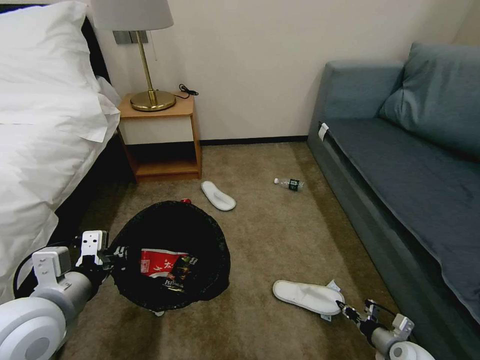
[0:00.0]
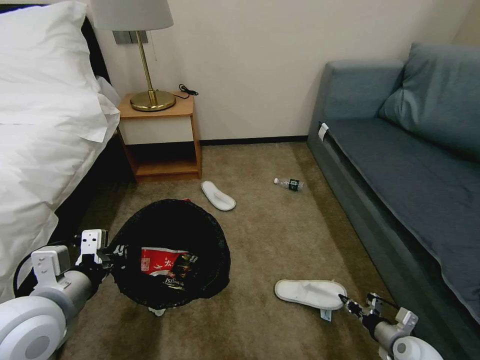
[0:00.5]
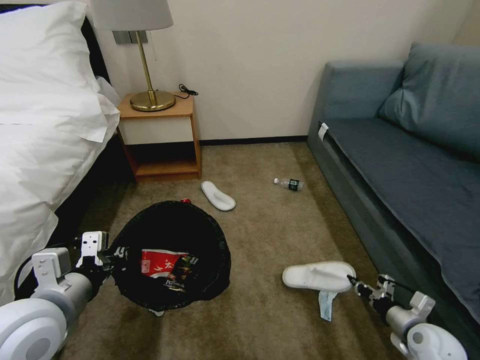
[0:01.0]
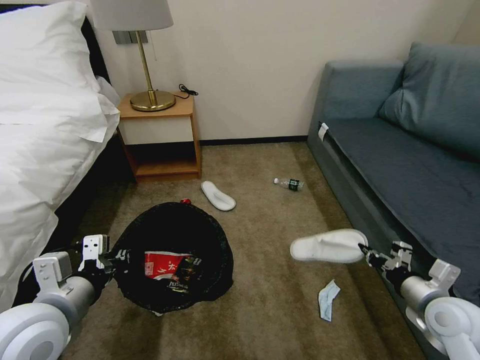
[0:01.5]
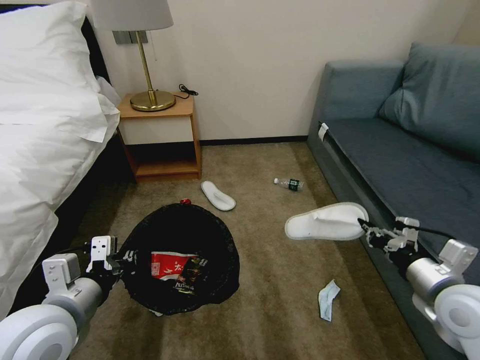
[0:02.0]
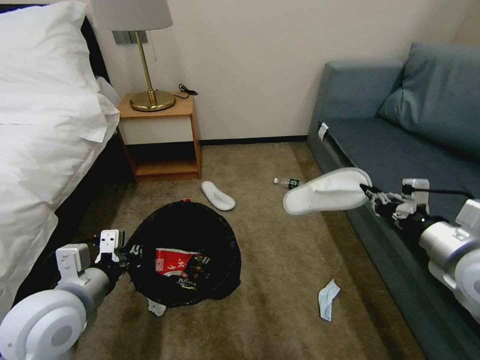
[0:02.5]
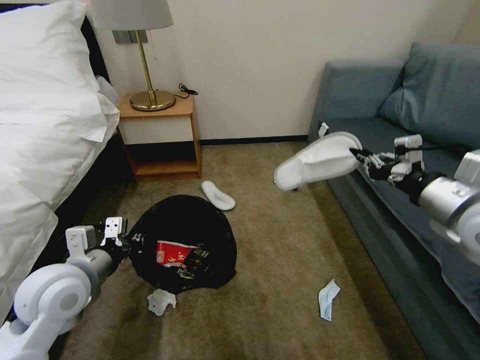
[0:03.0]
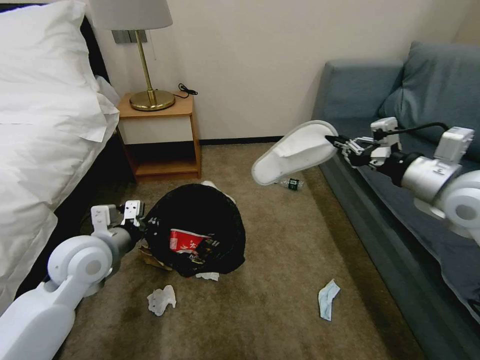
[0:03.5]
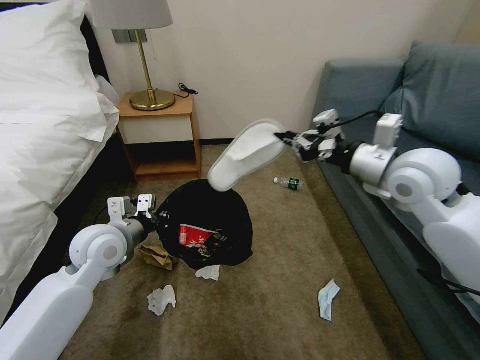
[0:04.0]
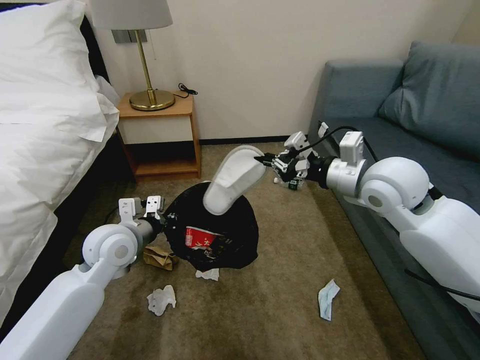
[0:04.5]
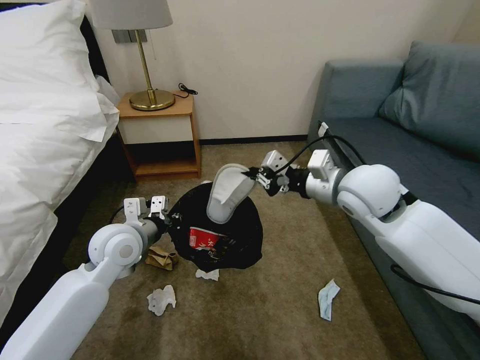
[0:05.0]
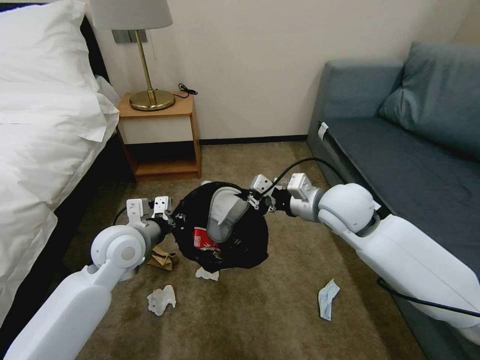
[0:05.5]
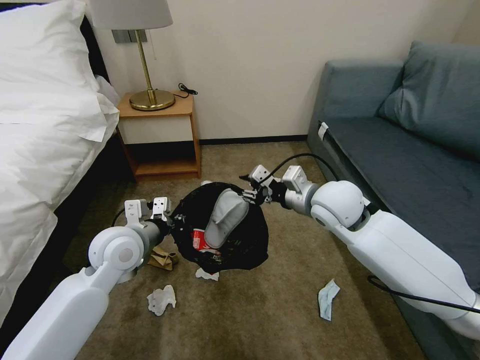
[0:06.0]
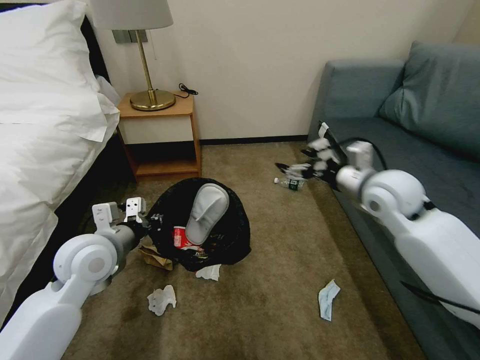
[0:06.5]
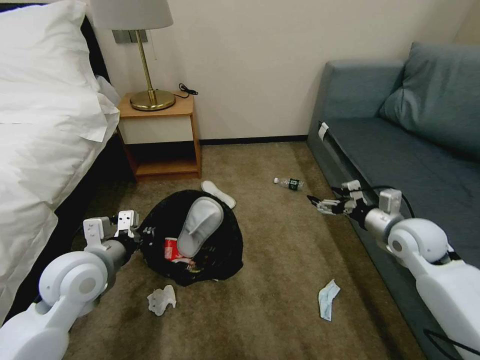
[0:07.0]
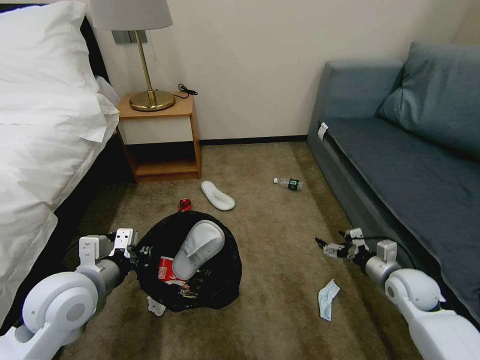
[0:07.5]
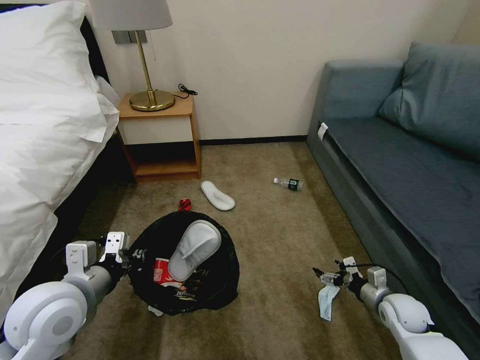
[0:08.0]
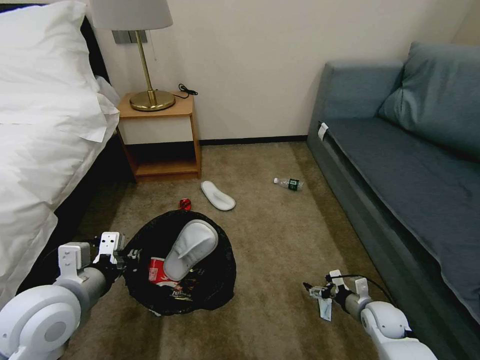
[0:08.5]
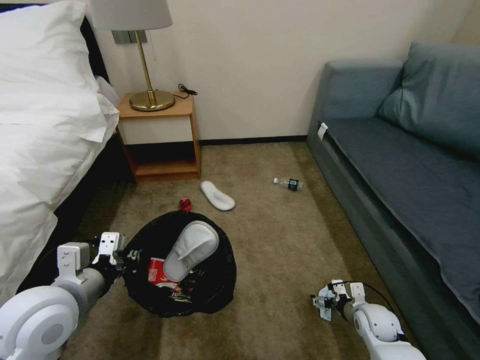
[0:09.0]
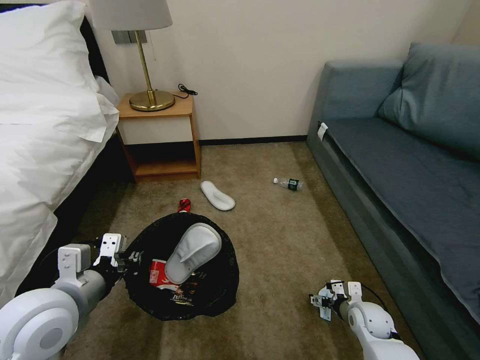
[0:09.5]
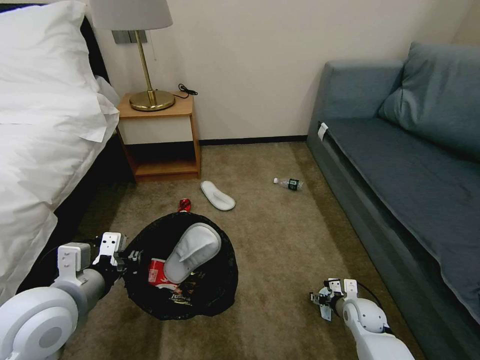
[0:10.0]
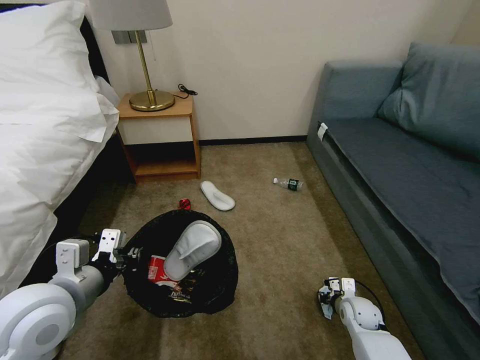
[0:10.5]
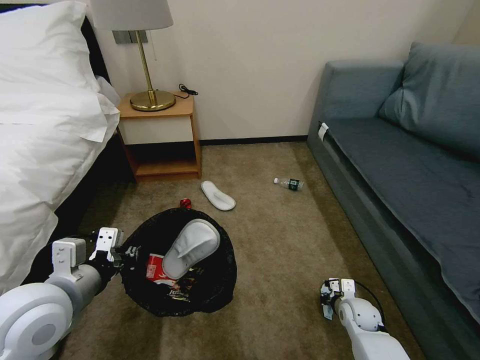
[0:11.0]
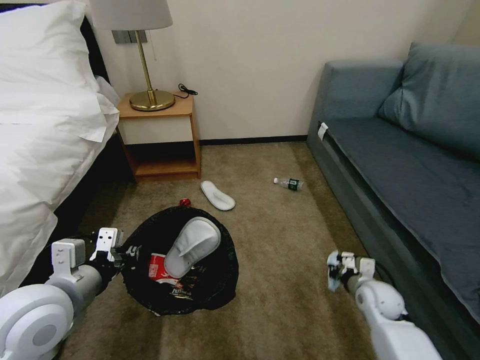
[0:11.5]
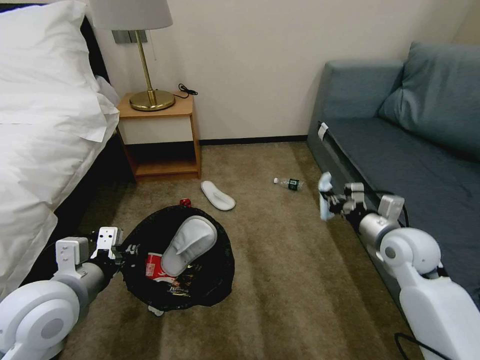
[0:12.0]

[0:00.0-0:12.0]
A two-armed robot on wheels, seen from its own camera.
Task of the whole recording: Pick up the trash bin, then pick up the garbage on the floor and place it into the trash bin.
0:00.0 to 0:02.0: The right gripper is displaced upward by roughly 30 cm.
0:02.0 to 0:04.0: The right gripper goes roughly 25 cm forward, upward and to the left. Meanwhile the left gripper heads forward, covering some 15 cm.
0:04.0 to 0:06.0: The right gripper is displaced to the left and downward by approximately 15 cm, and opens up.
0:06.0 to 0:08.0: The right gripper goes roughly 40 cm downward, to the right and backward, and opens its fingers, while the left gripper travels backward and to the left by roughly 15 cm.
0:08.0 to 0:10.0: The right gripper shifts some 10 cm to the left and downward.
0:10.0 to 0:12.0: The right gripper travels upward by some 25 cm, and closes its fingers.

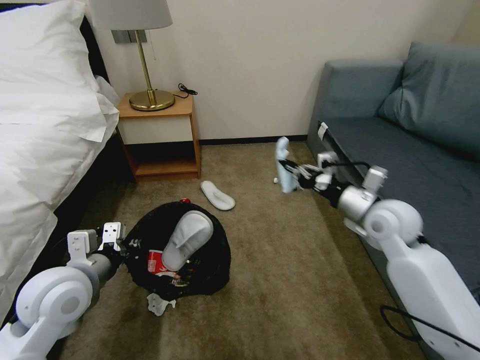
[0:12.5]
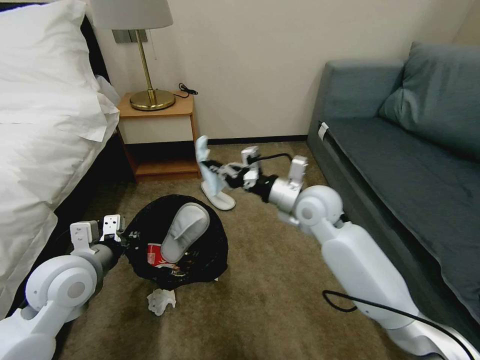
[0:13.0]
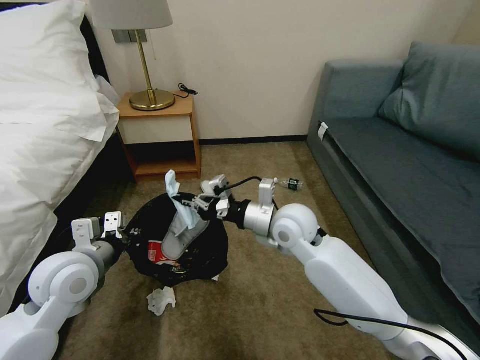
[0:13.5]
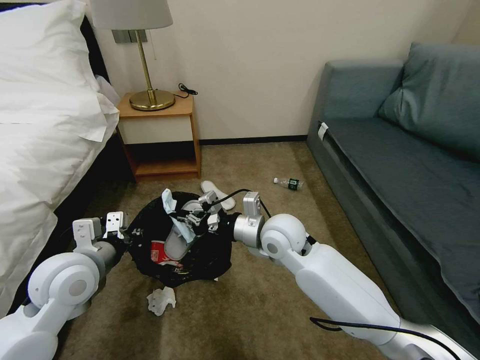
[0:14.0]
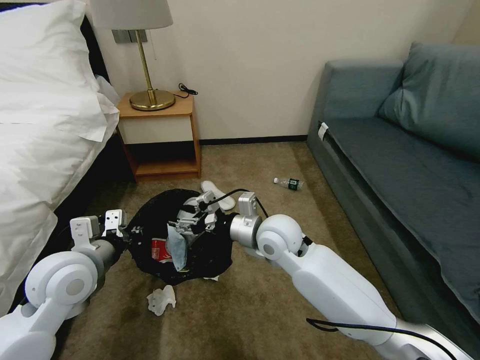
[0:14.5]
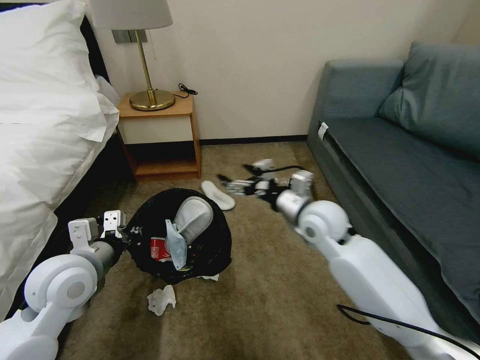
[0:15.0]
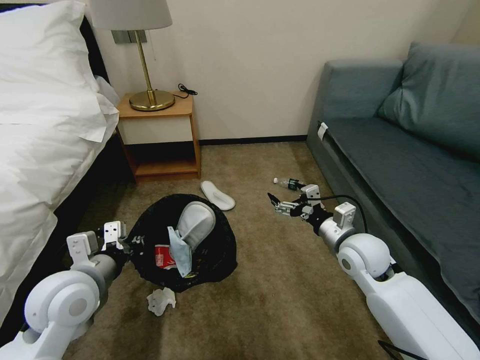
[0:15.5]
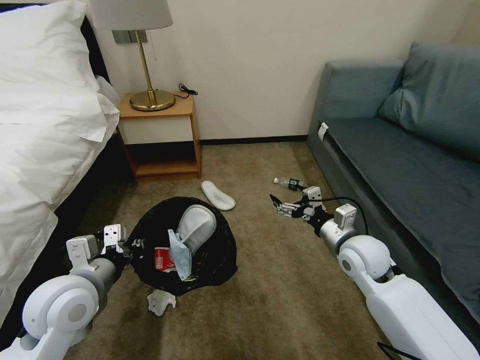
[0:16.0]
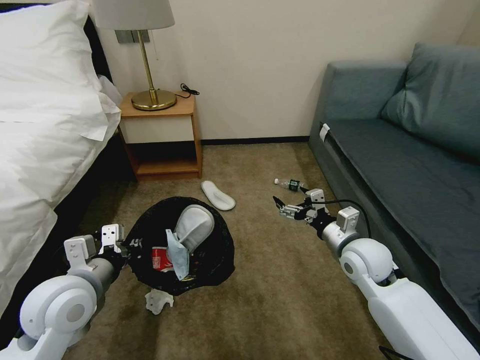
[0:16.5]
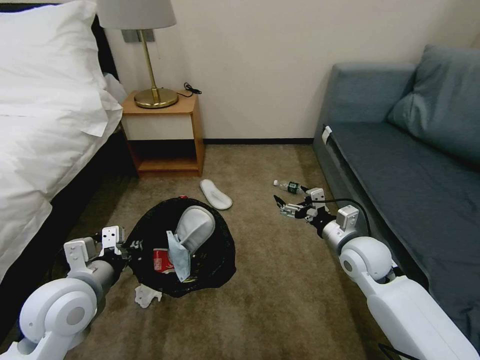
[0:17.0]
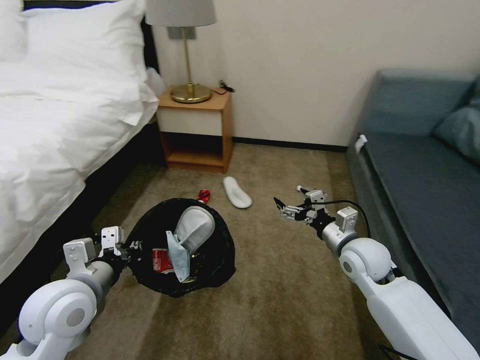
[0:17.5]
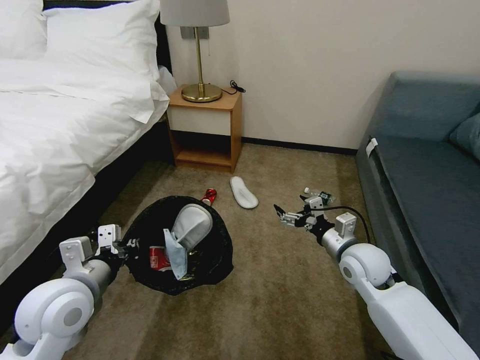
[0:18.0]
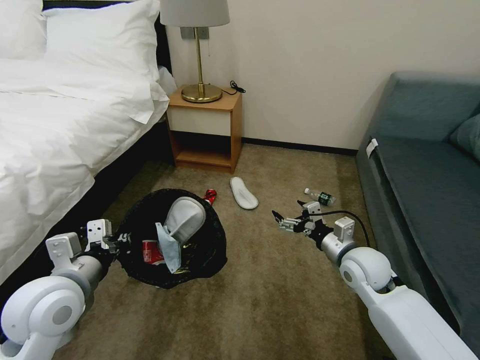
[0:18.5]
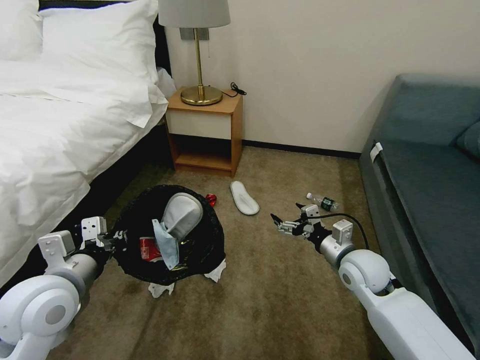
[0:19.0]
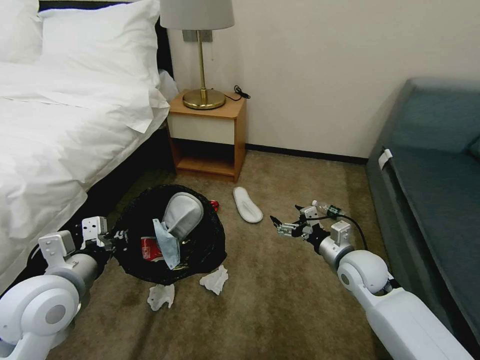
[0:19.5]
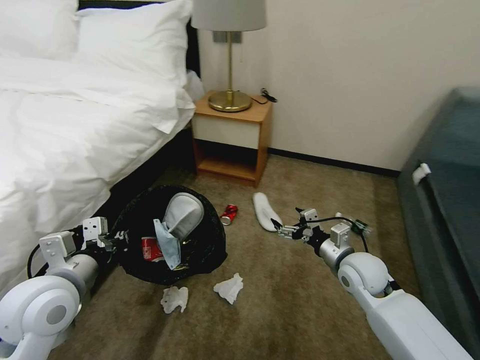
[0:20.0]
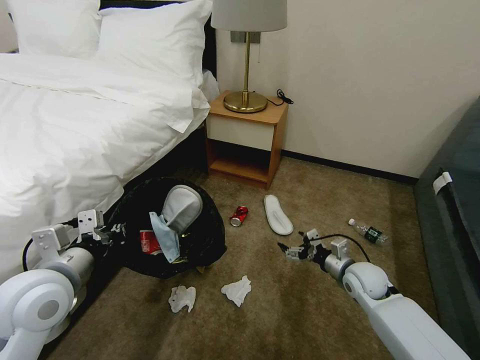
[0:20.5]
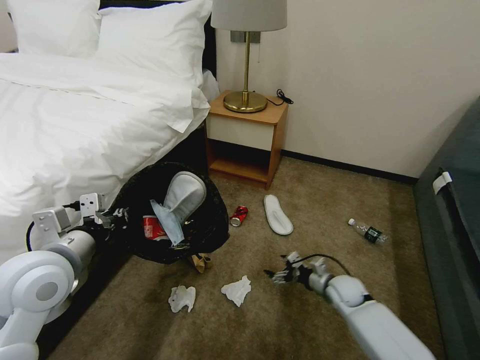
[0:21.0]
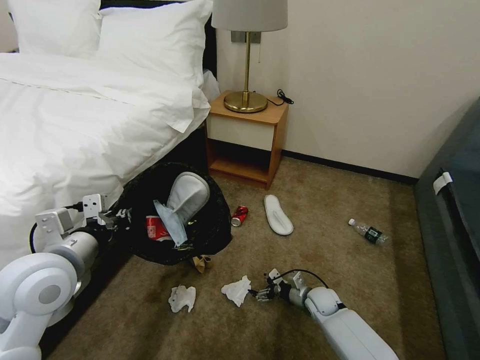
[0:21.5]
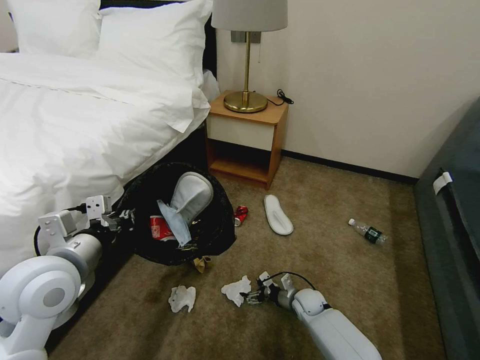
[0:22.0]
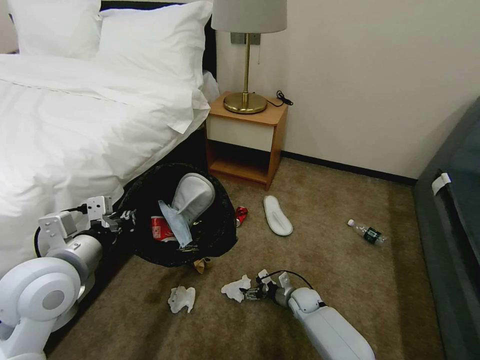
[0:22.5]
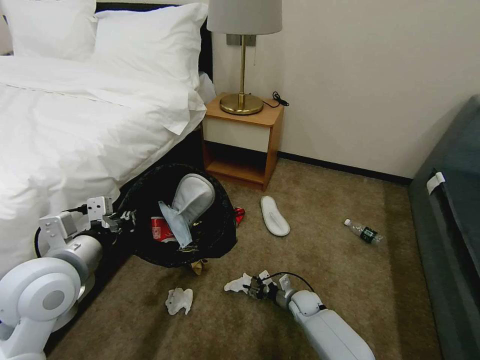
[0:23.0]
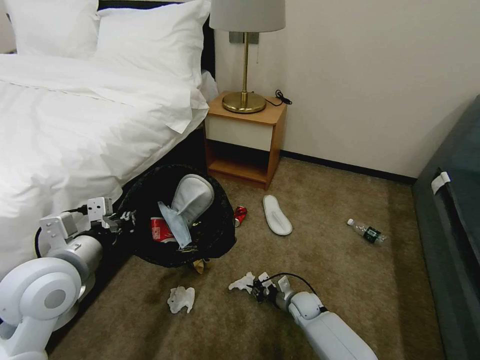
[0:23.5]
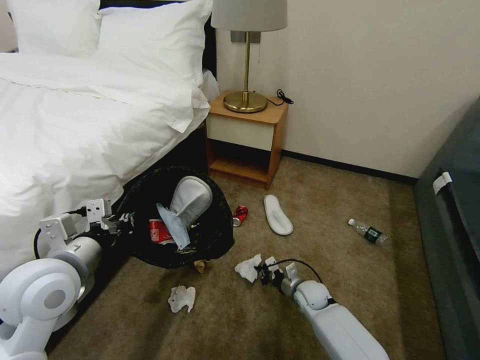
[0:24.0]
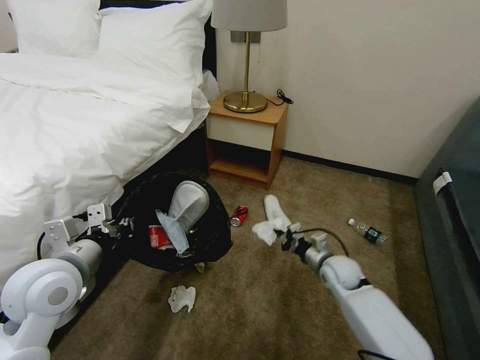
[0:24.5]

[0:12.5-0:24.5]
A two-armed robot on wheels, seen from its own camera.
Task of the whole recording: Pick up the trash bin, then pick up the garbage on the floor and place it into the trash bin.
0:12.5 to 0:14.5: The right gripper shifts some 20 cm to the left, and opens up.
0:14.5 to 0:16.5: The right gripper travels to the right by about 20 cm, and opens its fingers.
0:18.5 to 0:20.5: The right gripper shifts about 10 cm downward.
0:20.5 to 0:22.5: The right gripper heads downward and to the left, covering about 20 cm.
0:22.5 to 0:24.5: The right gripper travels upward by approximately 15 cm, and closes up.

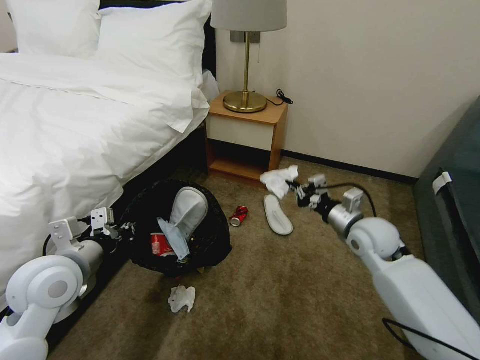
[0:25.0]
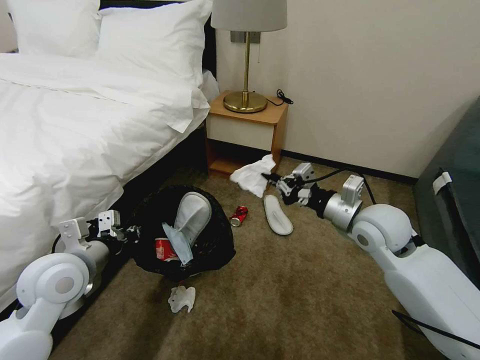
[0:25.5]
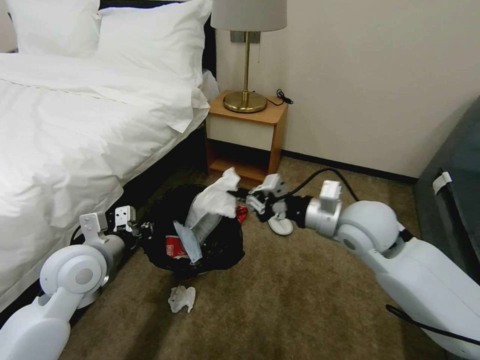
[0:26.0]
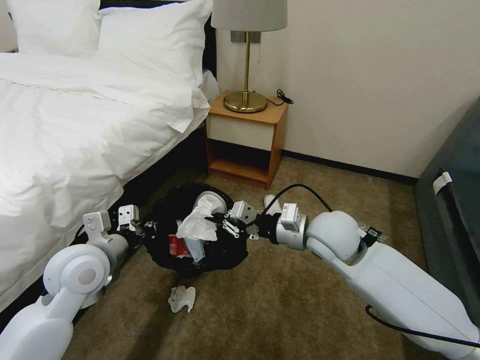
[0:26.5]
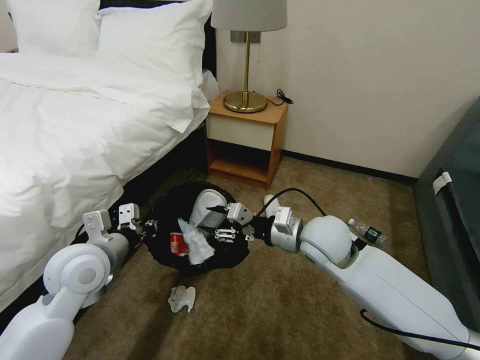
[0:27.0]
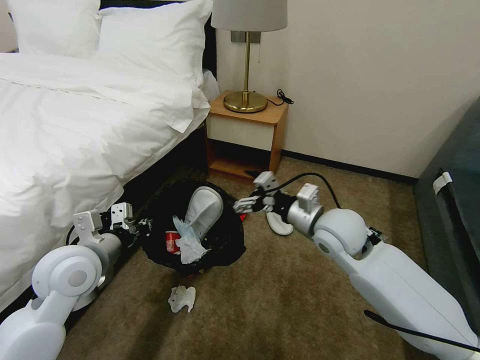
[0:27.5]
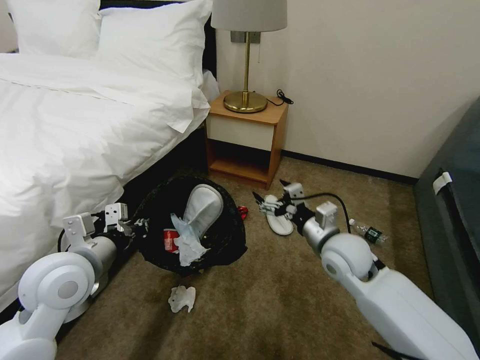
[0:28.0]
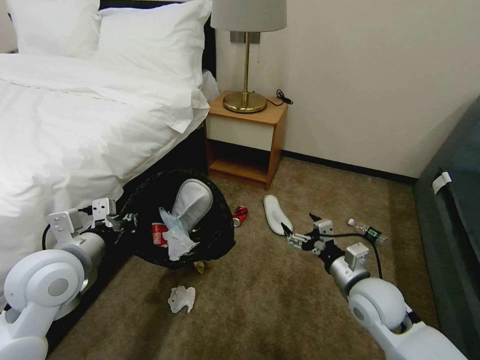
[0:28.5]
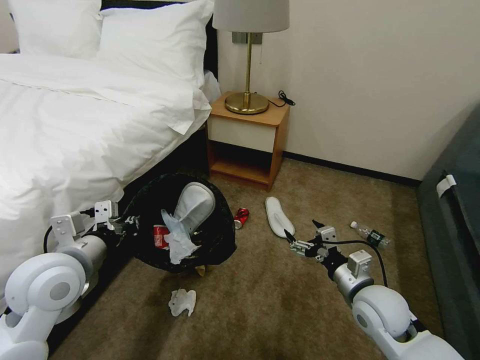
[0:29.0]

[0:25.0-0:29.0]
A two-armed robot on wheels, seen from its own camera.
Task of the whole recording: Pick up the trash bin, then pick up the garbage on the floor and place it into the trash bin.
0:25.0 to 0:27.0: The right gripper goes some 15 cm to the left and upward, and opens.
0:27.0 to 0:29.0: The right gripper is displaced to the right, downward and backward by some 20 cm, and opens its fingers.
